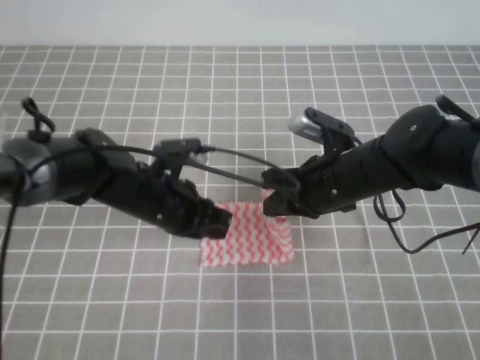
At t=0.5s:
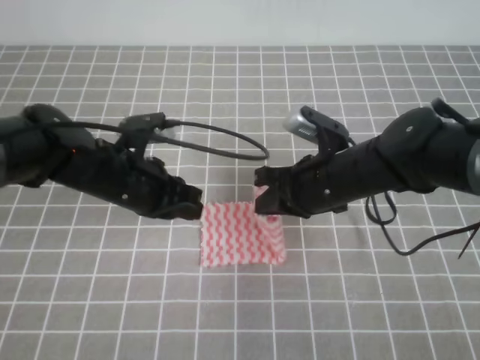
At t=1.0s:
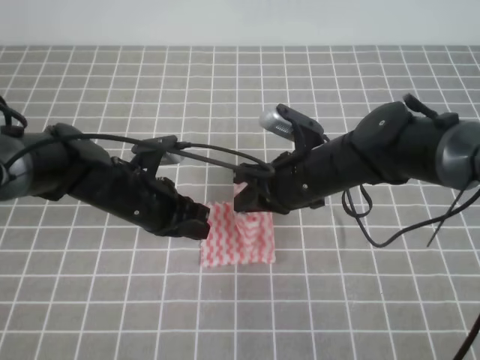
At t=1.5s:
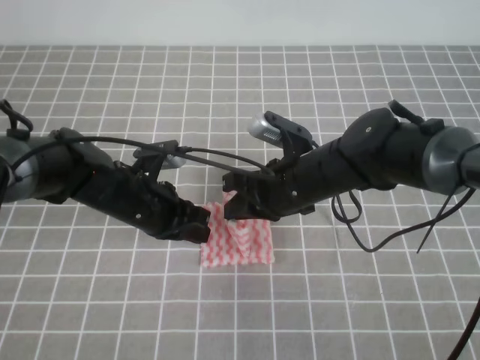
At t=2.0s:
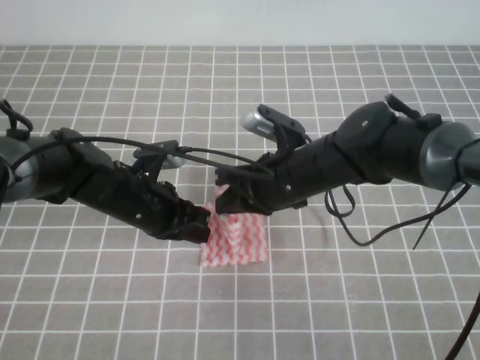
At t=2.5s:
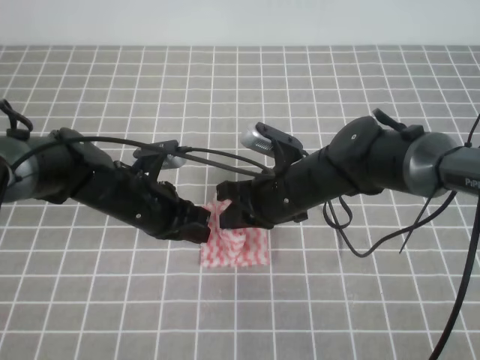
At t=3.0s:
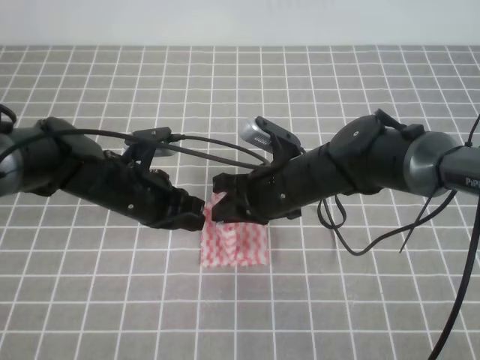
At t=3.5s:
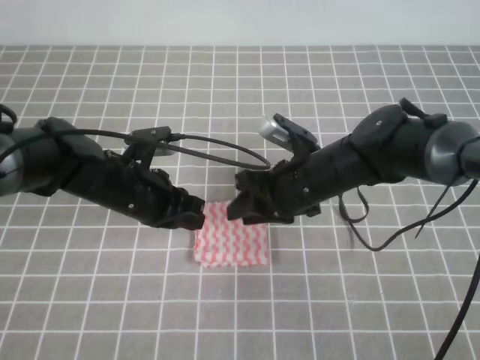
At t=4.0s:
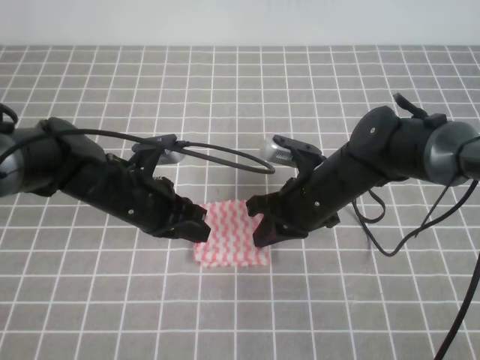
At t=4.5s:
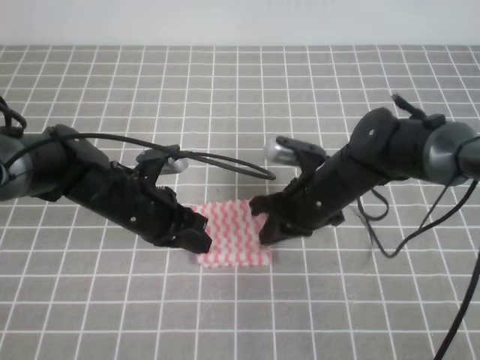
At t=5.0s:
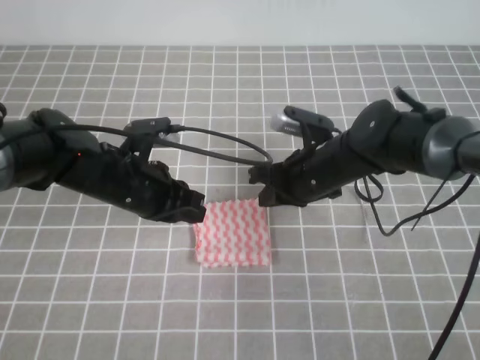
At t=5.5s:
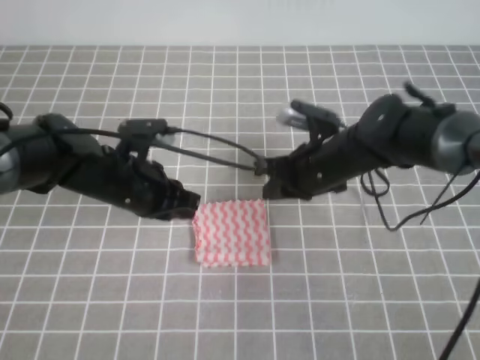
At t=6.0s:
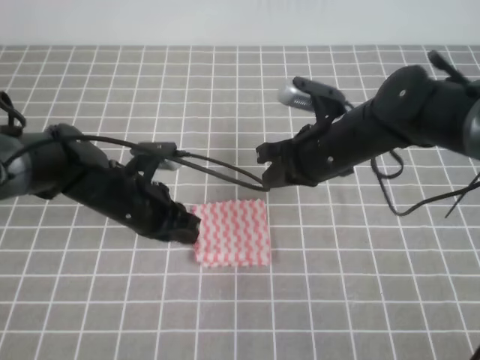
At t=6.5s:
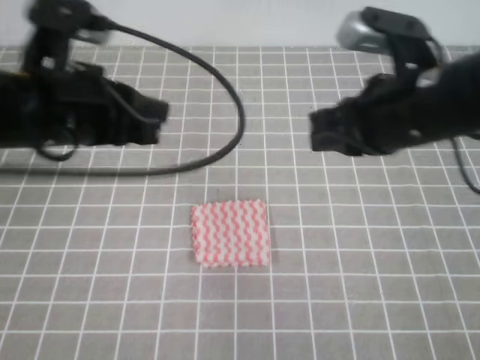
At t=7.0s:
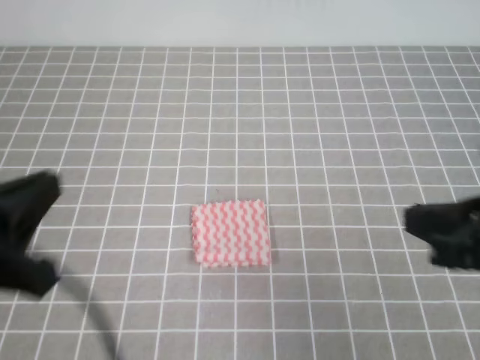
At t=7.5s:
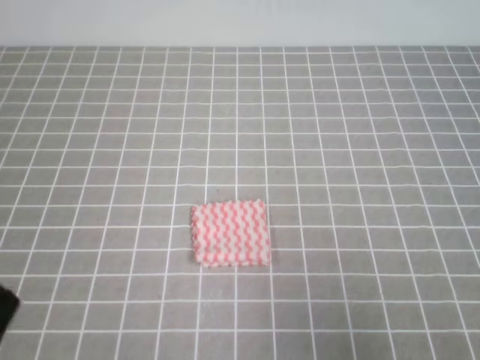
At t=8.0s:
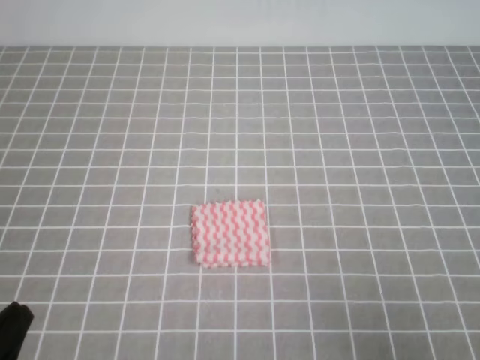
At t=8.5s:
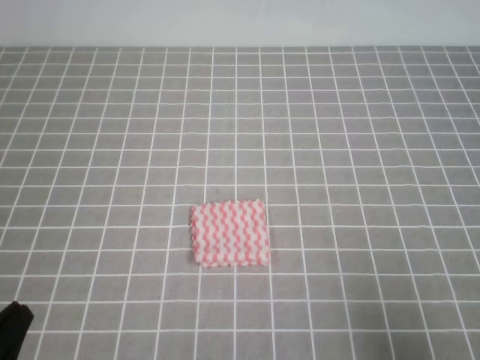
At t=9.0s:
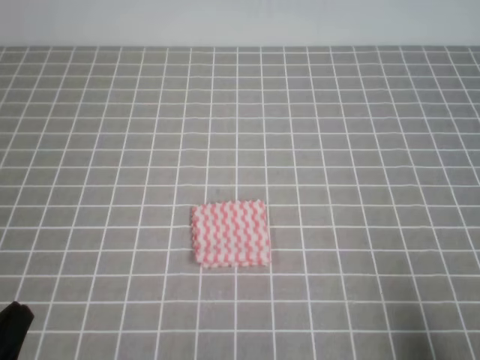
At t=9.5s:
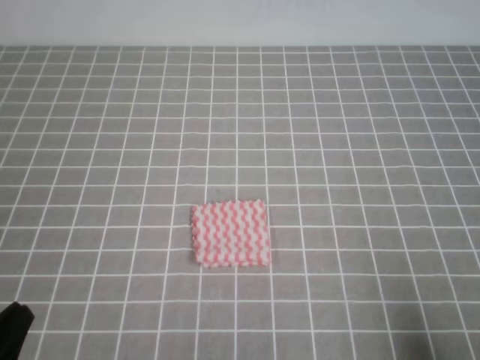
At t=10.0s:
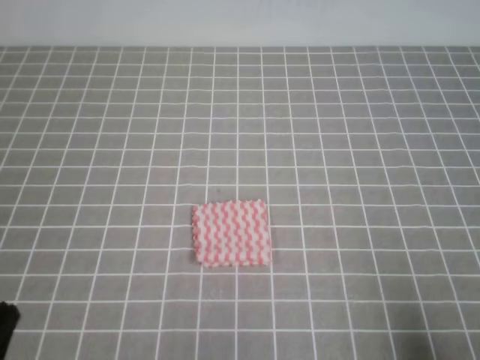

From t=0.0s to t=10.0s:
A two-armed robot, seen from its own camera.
Step, from t=0.0s to t=10.0s: Fold the towel.
From t=0.0s to t=2.0s: The right gripper shifts approximately 5 cm to the left.
From t=2.0s to t=4.0s: The right gripper opens, then closes again.
From t=4.0s to t=6.0s: The right gripper goes approximately 5 cm upward.
From t=6.0s to t=8.0s: The right gripper is displaced backward and to the right by some 35 cm. The left gripper is displaced backward and to the left by approximately 30 cm.
From t=8.0s to t=10.0s: The right gripper travels downward by about 5 cm.
